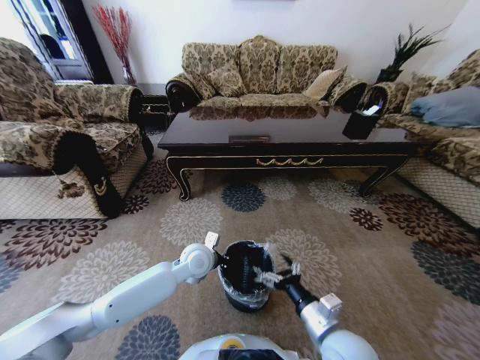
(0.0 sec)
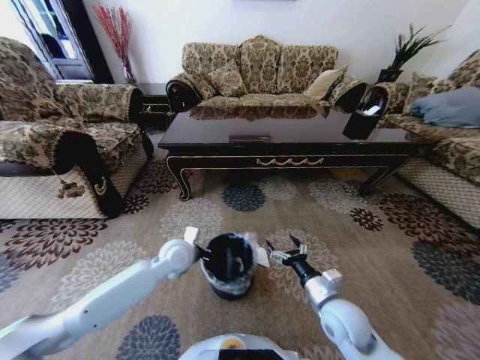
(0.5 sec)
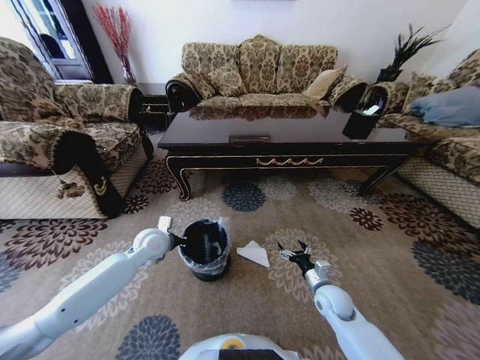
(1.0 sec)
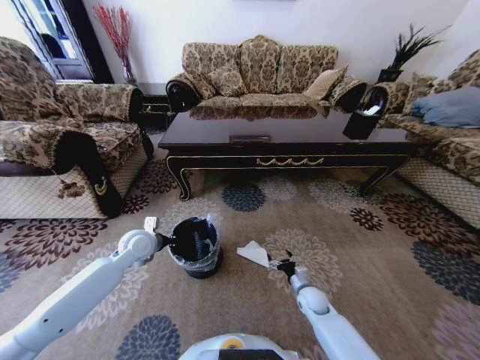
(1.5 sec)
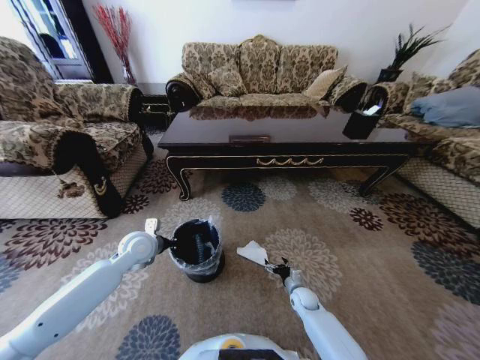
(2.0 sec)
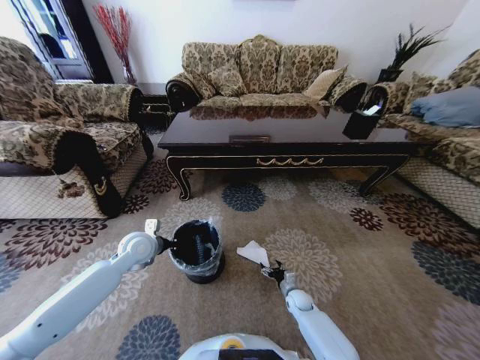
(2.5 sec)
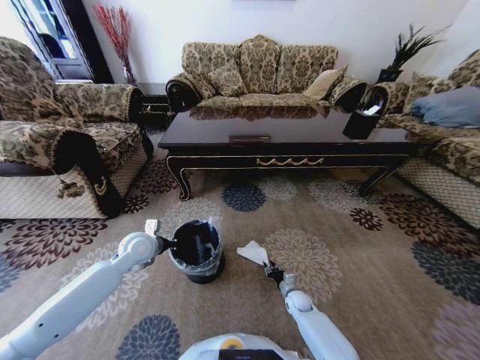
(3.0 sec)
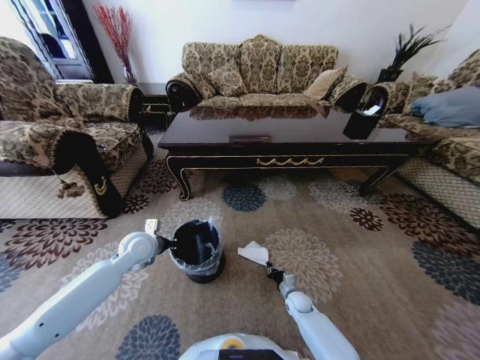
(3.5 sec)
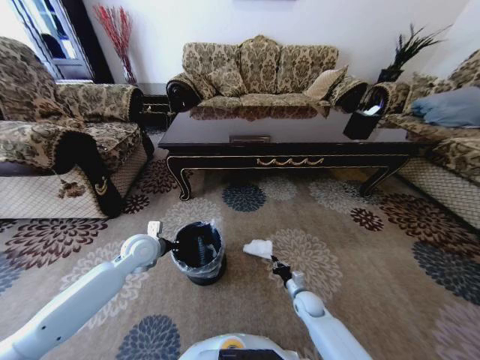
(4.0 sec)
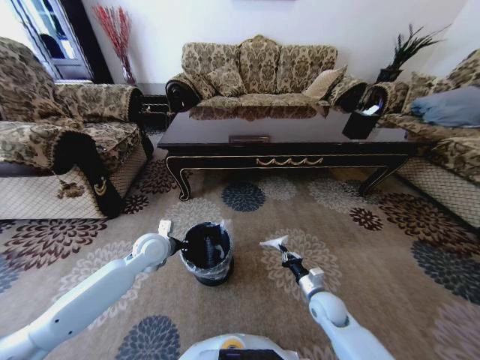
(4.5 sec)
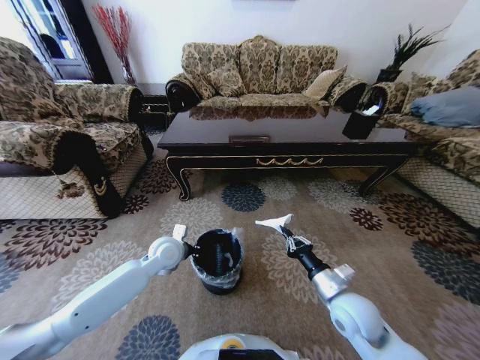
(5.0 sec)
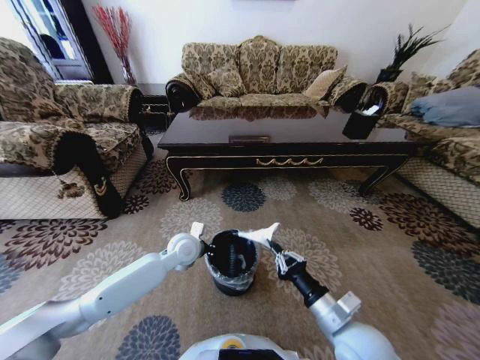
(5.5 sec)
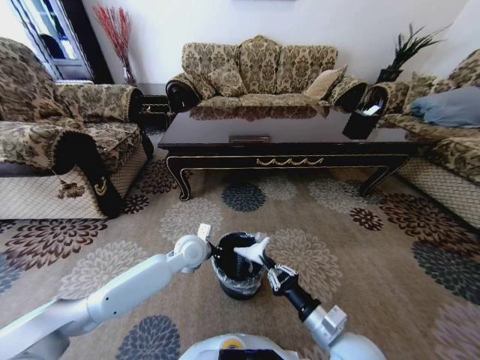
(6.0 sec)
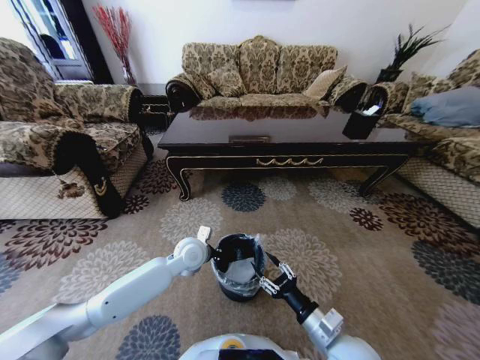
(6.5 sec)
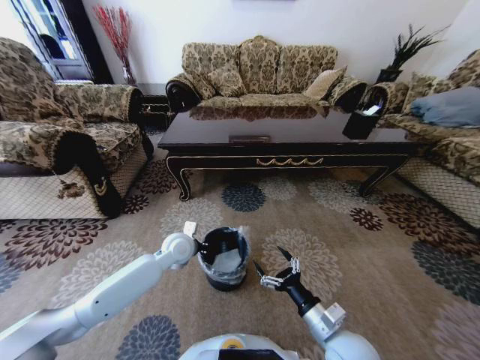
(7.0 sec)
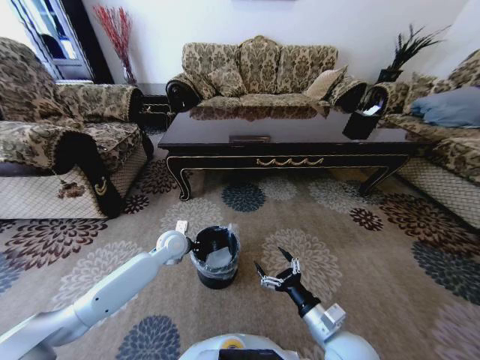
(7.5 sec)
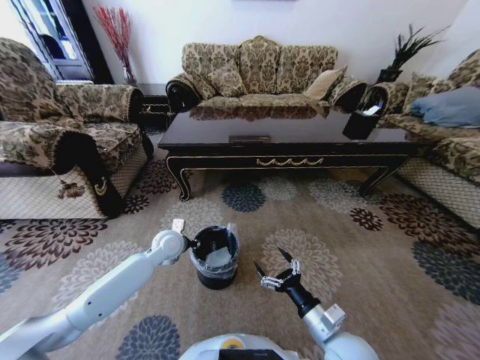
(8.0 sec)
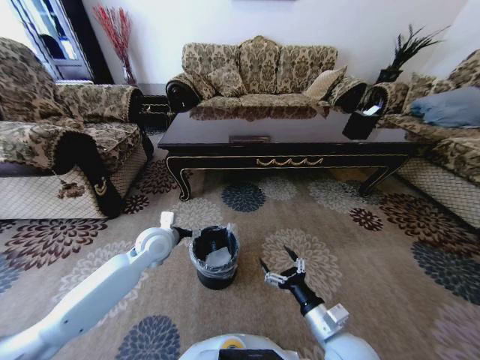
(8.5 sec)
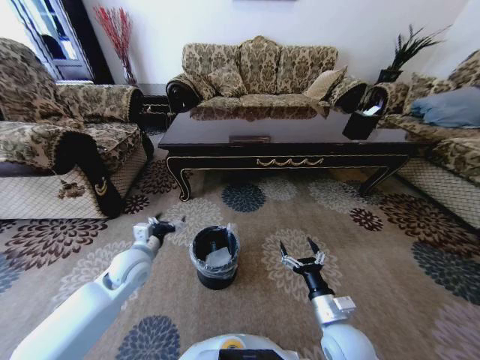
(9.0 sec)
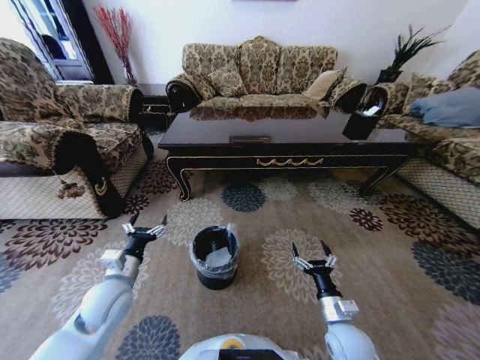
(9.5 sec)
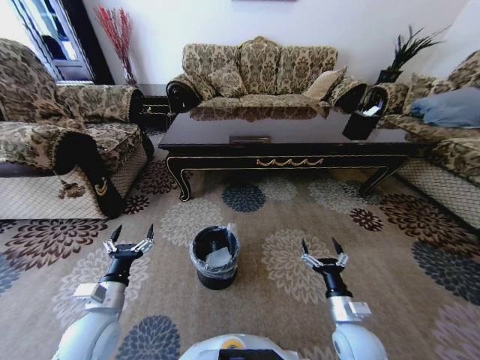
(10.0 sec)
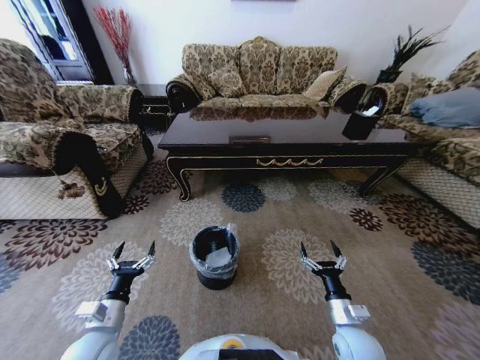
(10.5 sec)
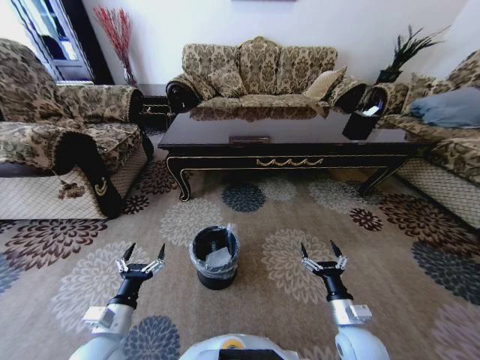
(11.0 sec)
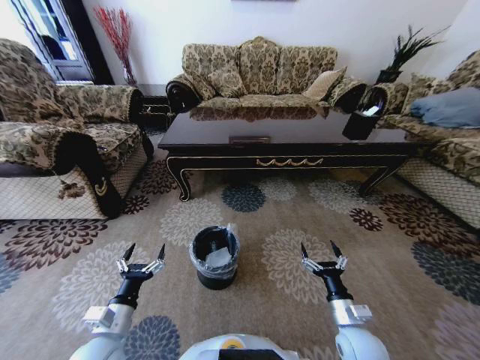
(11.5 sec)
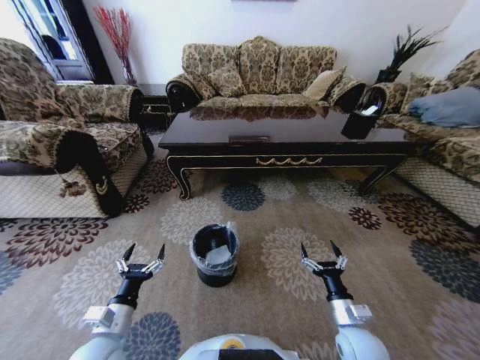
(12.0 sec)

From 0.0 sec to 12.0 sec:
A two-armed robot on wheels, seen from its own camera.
Task of the whole recording: Move to the front of the table and pick up the trash from the floor, then place it into the trash bin.
From 0.0 sec to 2.0 sec: The right gripper moves downward and forward, about 30 cm. The left gripper shifts roughly 15 cm to the left.
From 2.0 sec to 4.0 sec: The right gripper closes up.
From 4.0 sec to 6.0 sec: The right gripper moves upward and backward, roughly 30 cm; the left gripper heads to the right, covering about 15 cm.
From 6.0 sec to 8.0 sec: The right gripper opens up; the left gripper shifts approximately 10 cm to the left, and opens.
From 8.0 sec to 10.0 sec: The right gripper travels to the right by some 5 cm. Meanwhile the left gripper goes about 25 cm backward and to the left, and opens.
From 10.0 sec to 12.0 sec: The left gripper ends up roughly 5 cm from where it was.

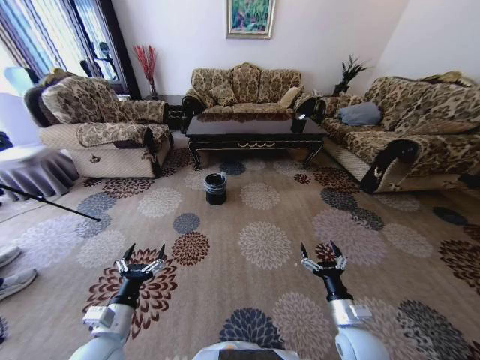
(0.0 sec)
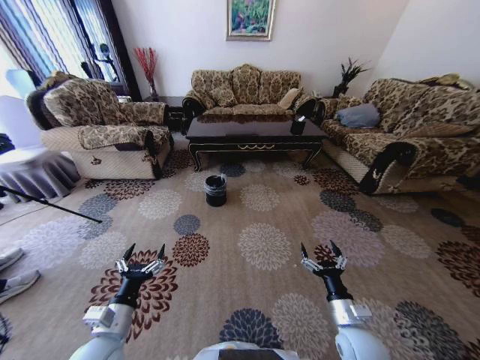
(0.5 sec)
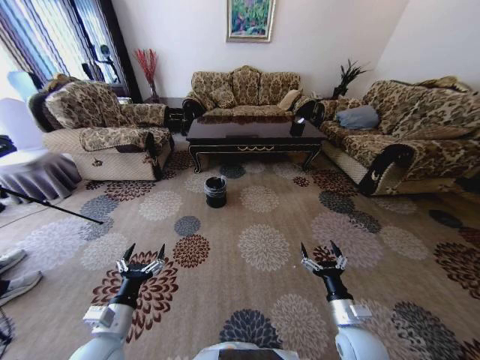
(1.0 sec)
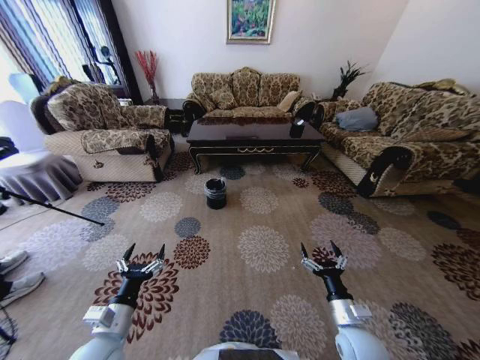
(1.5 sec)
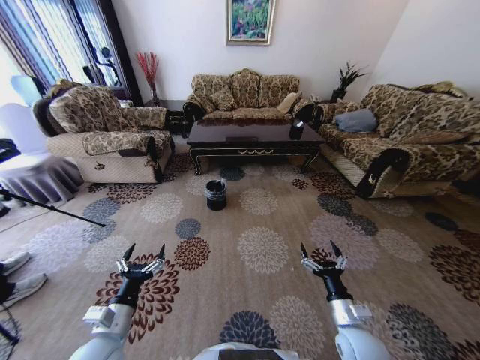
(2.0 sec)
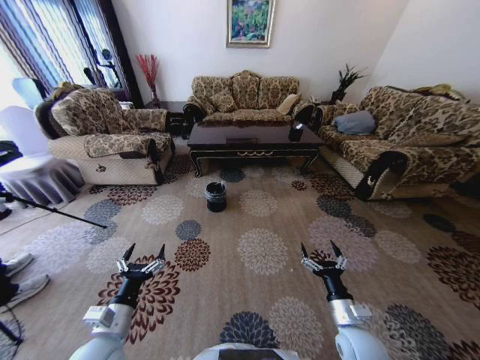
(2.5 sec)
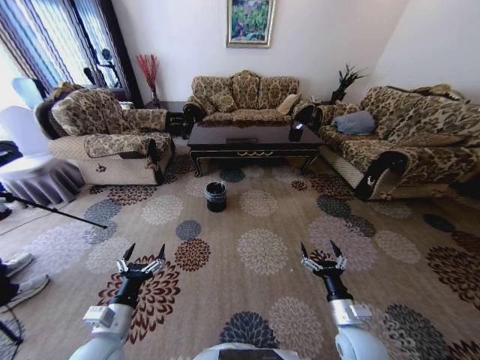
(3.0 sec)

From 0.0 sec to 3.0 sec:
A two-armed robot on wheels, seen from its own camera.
Task of the whole recording: Move to the front of the table and pick up the trash from the floor, then place it into the trash bin.
From 1.5 sec to 3.0 sec: The two grippers keep their place.

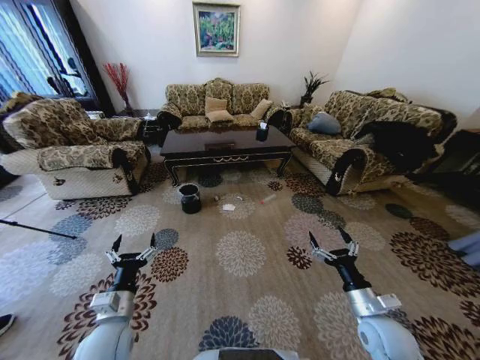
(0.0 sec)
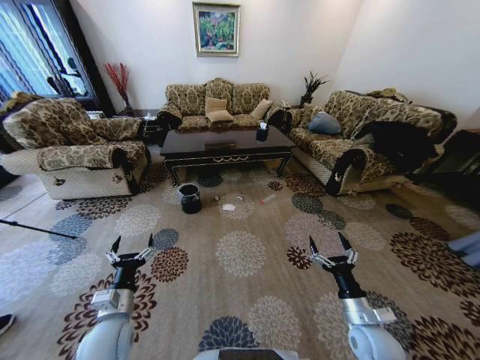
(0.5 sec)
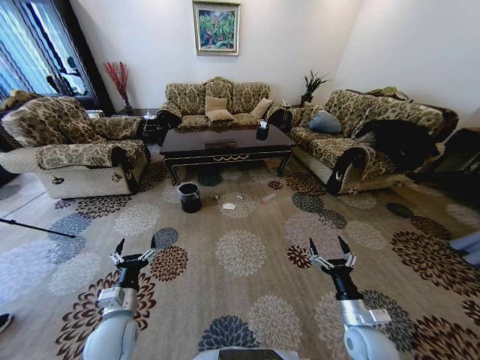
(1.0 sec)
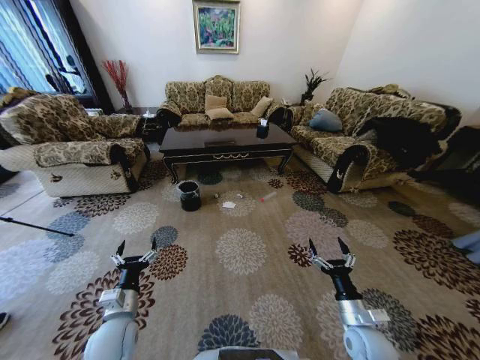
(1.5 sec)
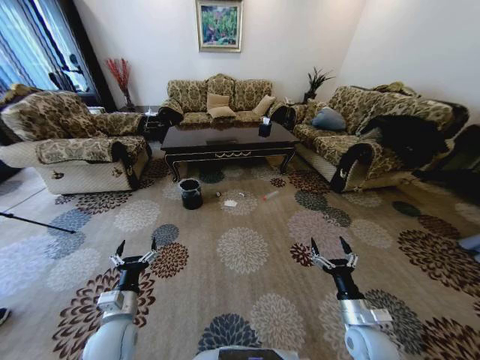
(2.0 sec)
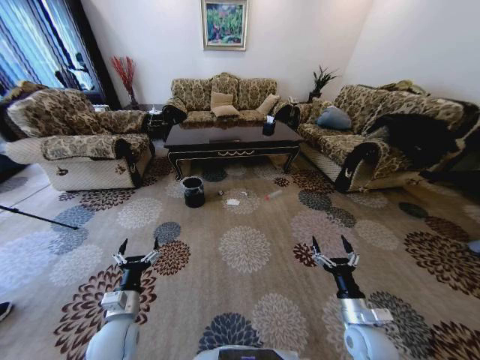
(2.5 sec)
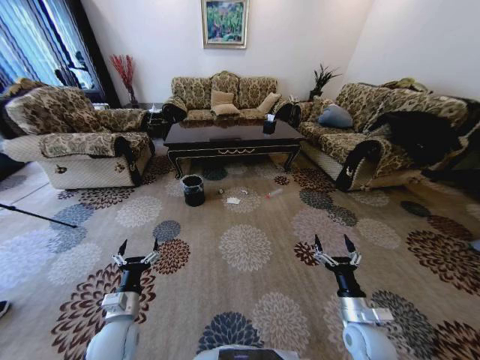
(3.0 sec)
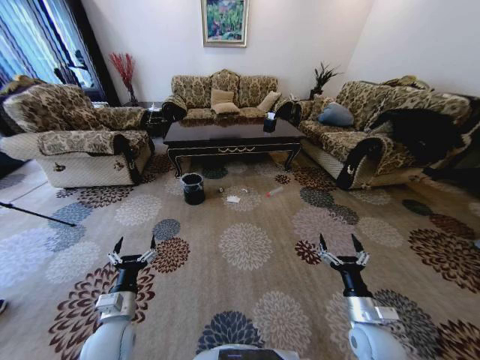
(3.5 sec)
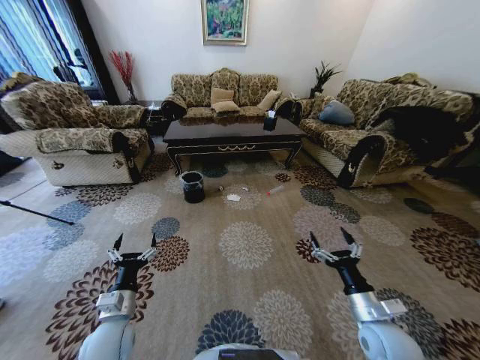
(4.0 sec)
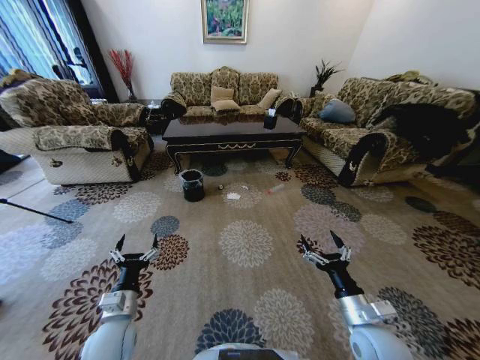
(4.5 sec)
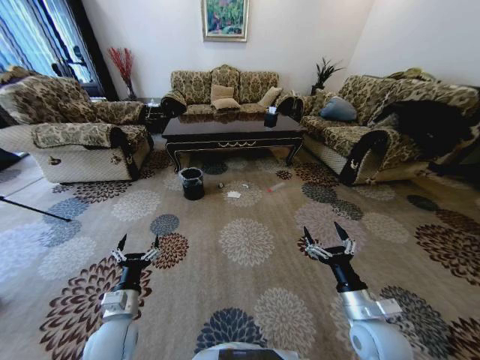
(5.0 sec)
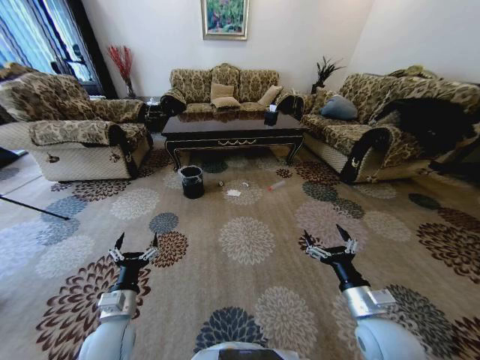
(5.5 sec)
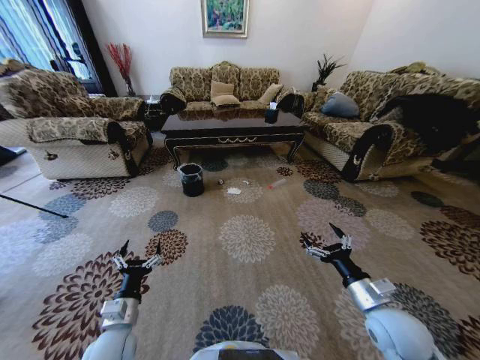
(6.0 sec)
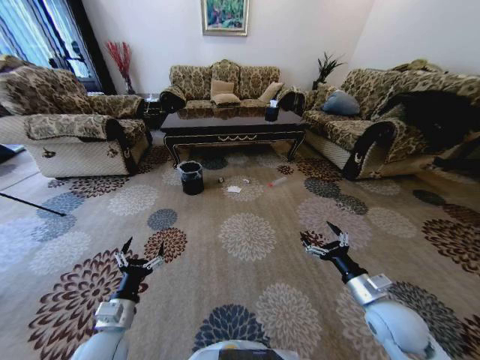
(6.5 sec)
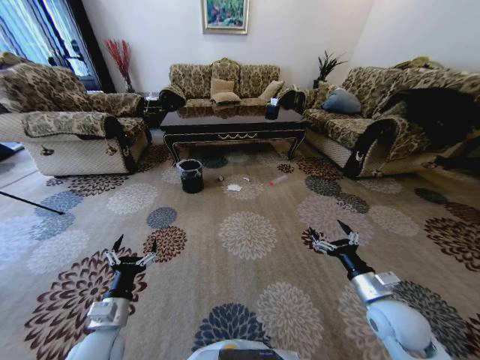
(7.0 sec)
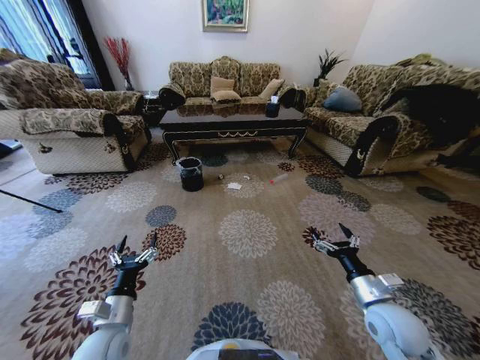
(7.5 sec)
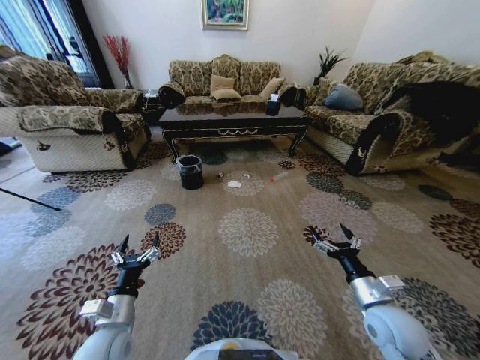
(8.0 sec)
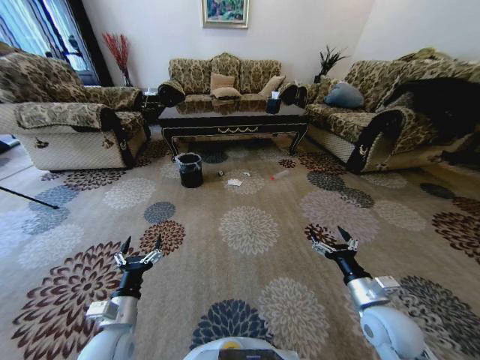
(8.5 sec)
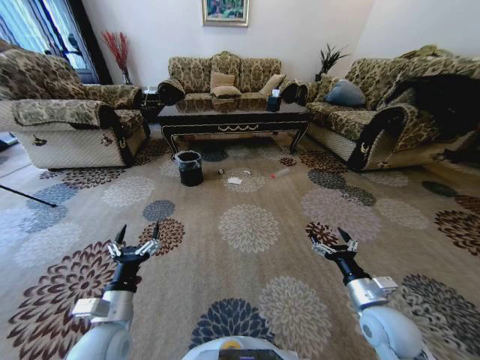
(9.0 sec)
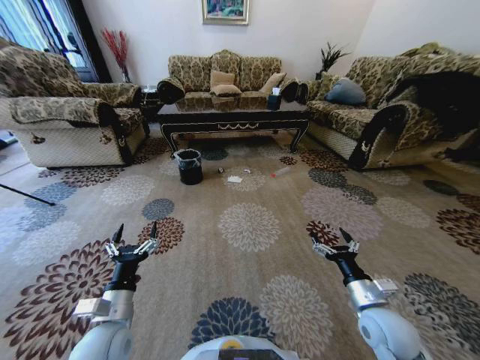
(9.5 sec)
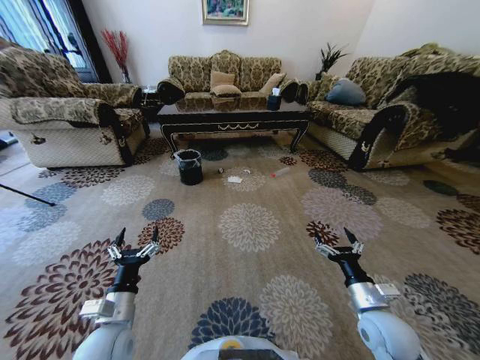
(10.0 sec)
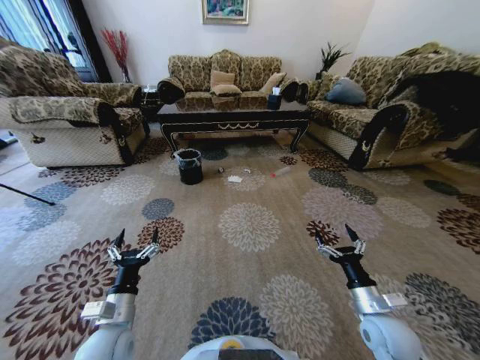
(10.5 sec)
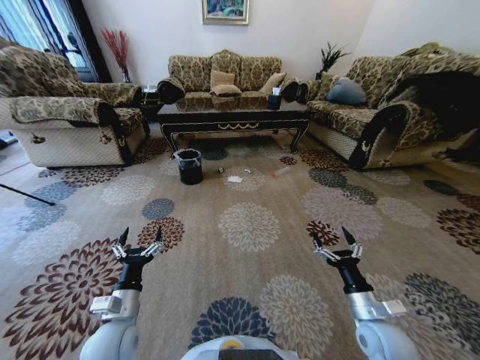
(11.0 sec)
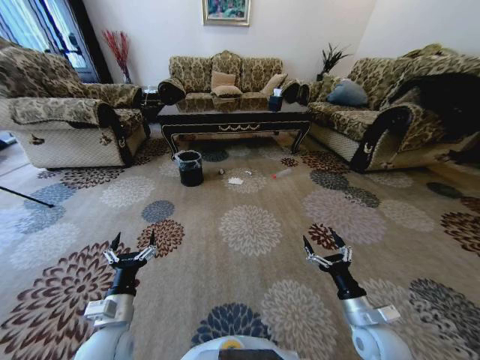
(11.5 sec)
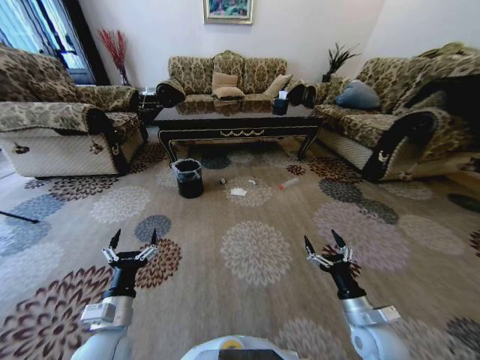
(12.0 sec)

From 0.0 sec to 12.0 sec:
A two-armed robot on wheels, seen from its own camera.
Task of the whole recording: Move to the front of the table and pick up the trash from the floor, then place it into the trash bin.
From 2.0 sec to 4.0 sec: The right gripper shifts about 5 cm upward.
